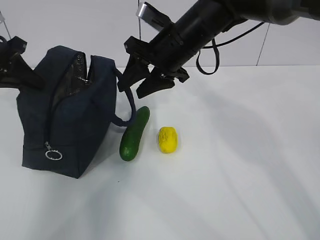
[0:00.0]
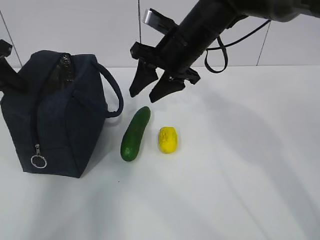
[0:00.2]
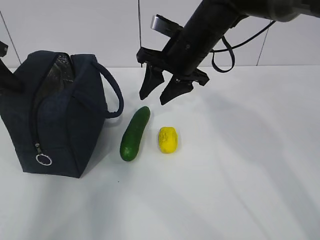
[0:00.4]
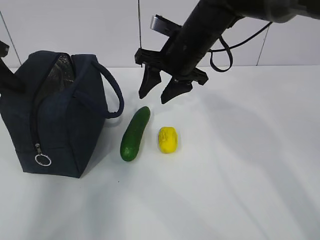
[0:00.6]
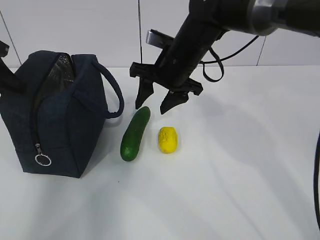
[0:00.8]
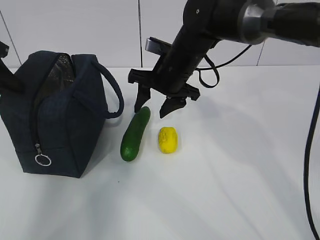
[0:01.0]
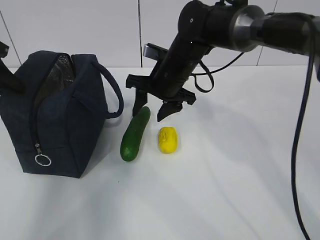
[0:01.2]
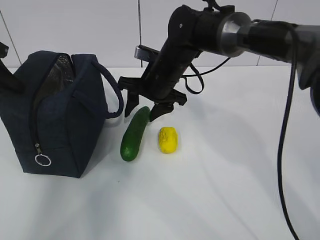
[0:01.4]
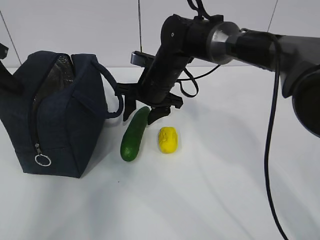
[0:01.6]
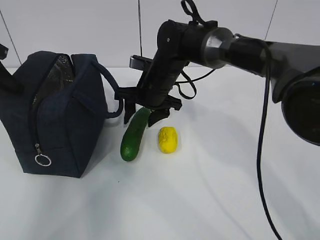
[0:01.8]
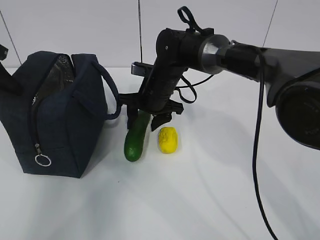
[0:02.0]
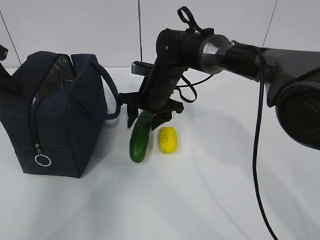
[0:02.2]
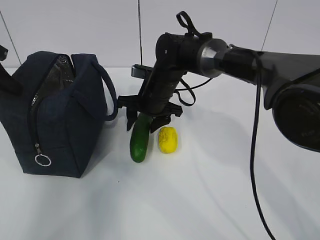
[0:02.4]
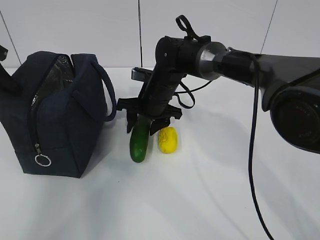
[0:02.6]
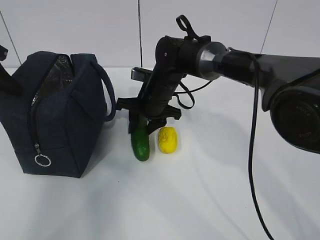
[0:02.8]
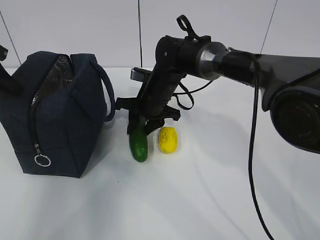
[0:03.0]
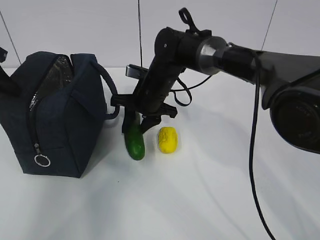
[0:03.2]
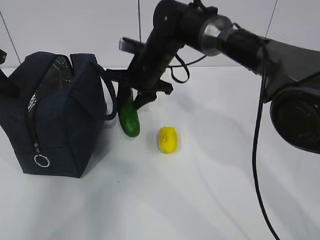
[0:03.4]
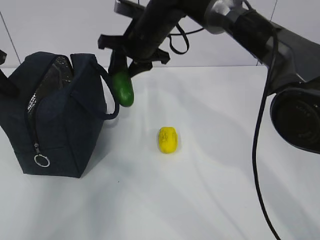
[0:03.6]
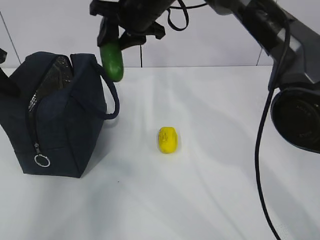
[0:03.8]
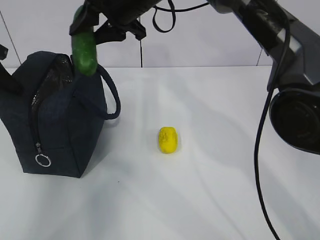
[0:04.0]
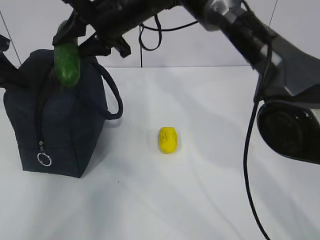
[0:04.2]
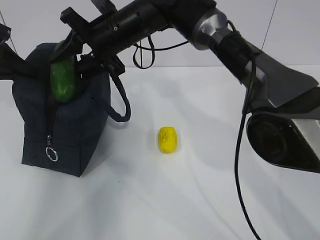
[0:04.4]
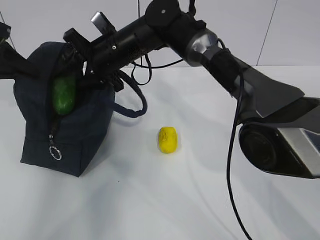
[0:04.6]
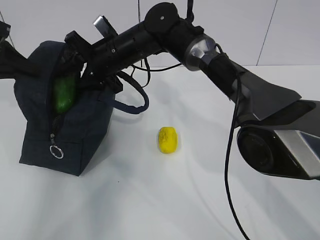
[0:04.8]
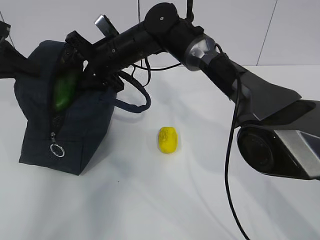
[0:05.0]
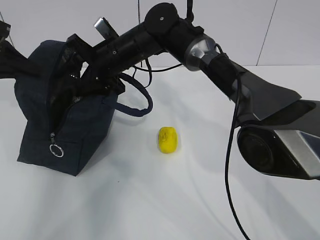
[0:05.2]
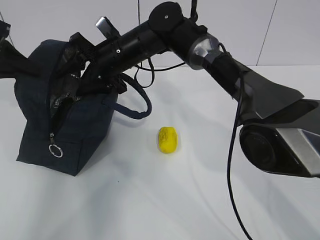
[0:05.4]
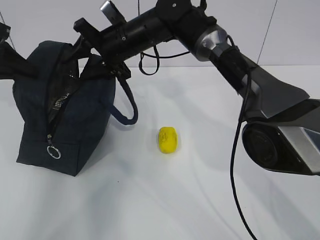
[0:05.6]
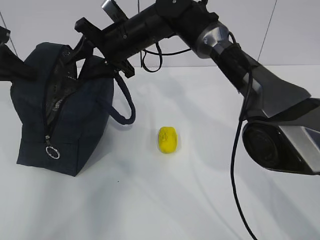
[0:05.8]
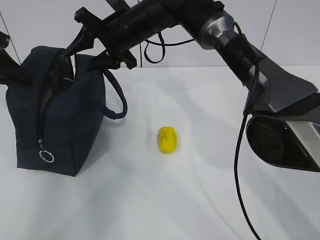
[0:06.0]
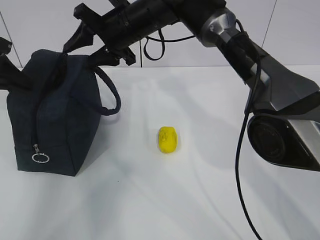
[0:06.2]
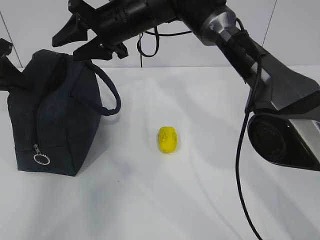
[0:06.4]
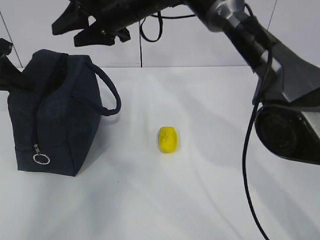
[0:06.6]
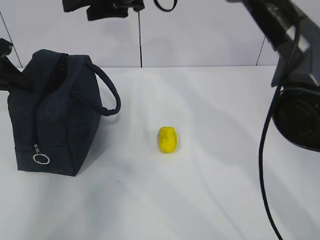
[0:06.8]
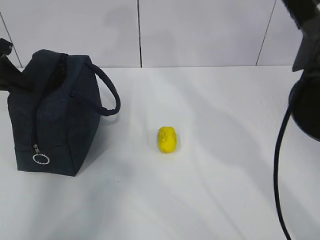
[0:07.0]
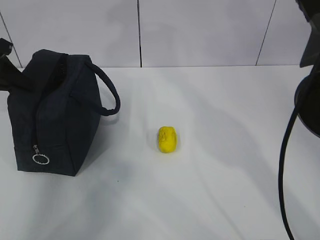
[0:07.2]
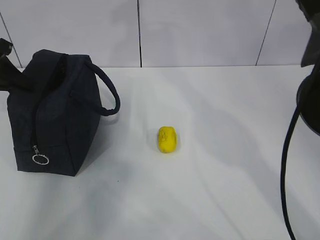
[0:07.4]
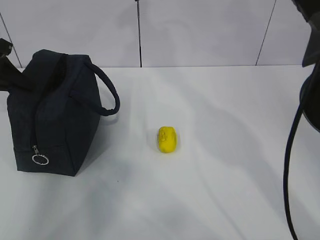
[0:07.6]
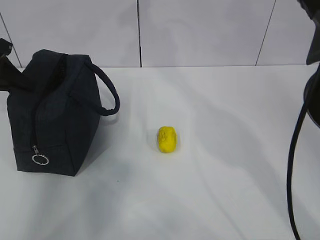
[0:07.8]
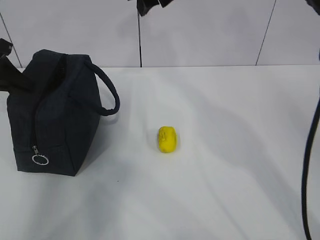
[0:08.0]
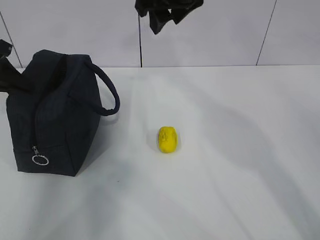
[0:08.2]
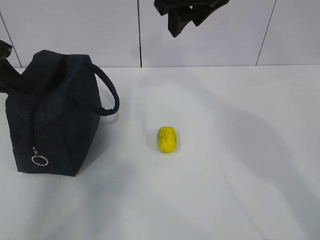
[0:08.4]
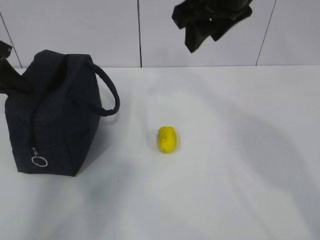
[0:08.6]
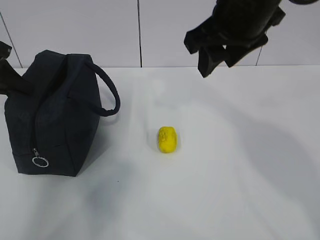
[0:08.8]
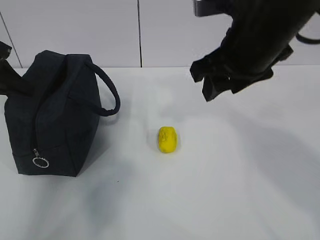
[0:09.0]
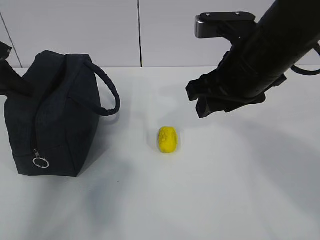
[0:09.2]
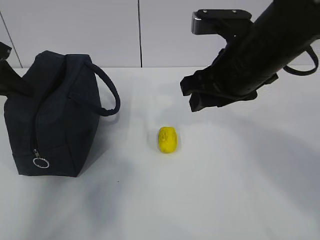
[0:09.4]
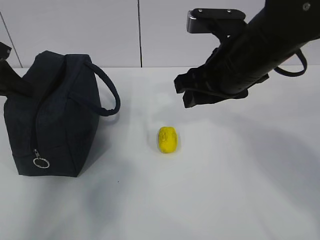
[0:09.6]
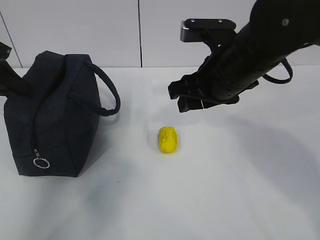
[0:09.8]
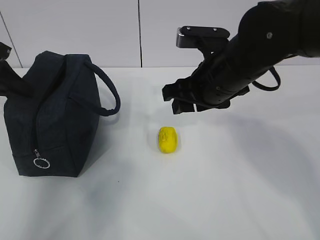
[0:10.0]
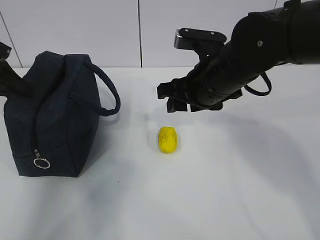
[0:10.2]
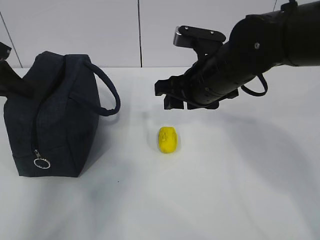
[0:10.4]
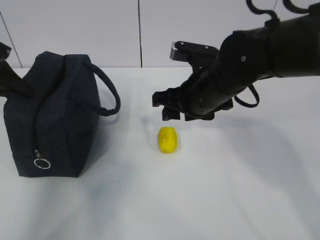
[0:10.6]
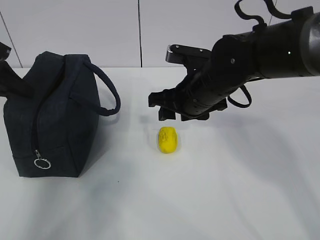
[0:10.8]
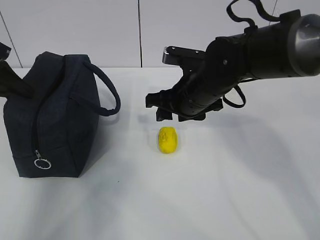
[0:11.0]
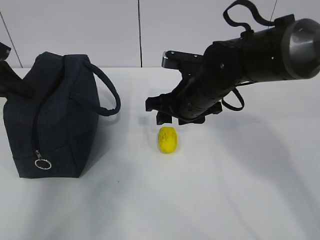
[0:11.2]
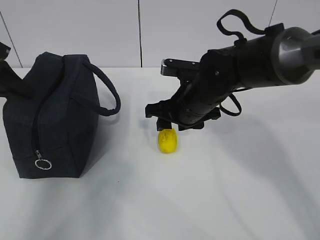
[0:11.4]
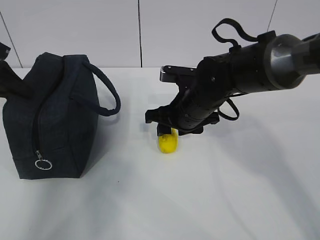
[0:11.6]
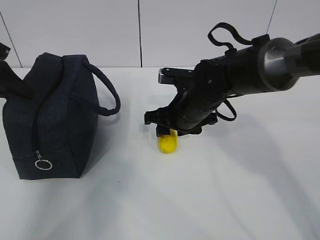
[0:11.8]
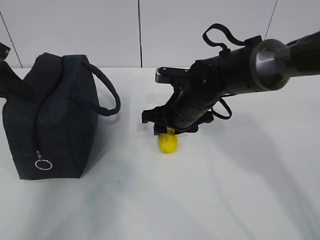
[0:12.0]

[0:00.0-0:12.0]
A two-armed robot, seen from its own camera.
Step, 0:00.6 to 0:08.0: Grab the lemon with your right hand.
Step, 0:10.0 to 0:11.8: Grab the lunch bag with your right hand.
0:00.0 to 0:01.6: The right gripper is displaced downward by approximately 10 cm.
0:01.6 to 0:03.0: There are only small adjustments of the grippers.
0:03.0 to 0:04.4: The right gripper heads upward and to the left, covering approximately 15 cm.
0:04.4 to 0:06.0: There are only small adjustments of the grippers.
0:06.0 to 0:07.6: The right gripper travels upward and to the right by about 15 cm.
0:07.6 to 0:09.0: The right gripper shifts some 15 cm backward, to the right and downward.
0:09.0 to 0:10.4: The right gripper goes approximately 10 cm downward.
0:10.4 to 0:12.0: The right gripper is displaced downward by about 10 cm.

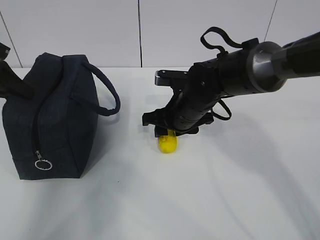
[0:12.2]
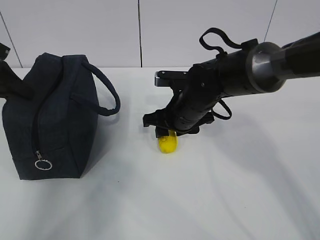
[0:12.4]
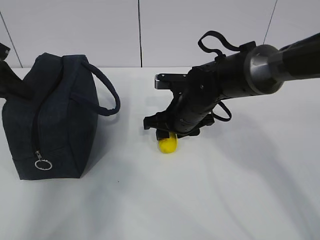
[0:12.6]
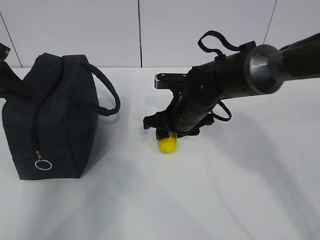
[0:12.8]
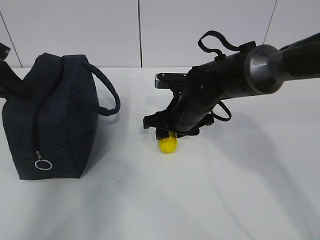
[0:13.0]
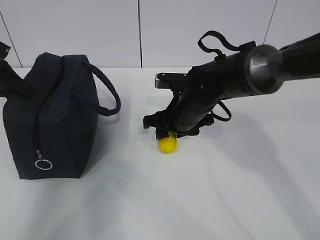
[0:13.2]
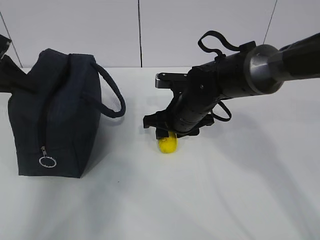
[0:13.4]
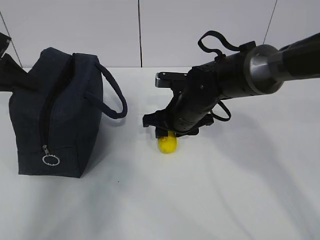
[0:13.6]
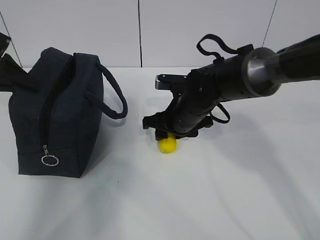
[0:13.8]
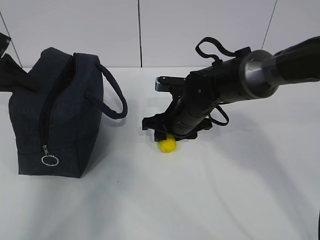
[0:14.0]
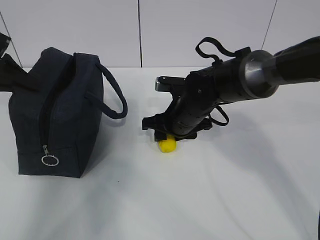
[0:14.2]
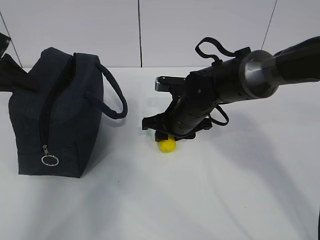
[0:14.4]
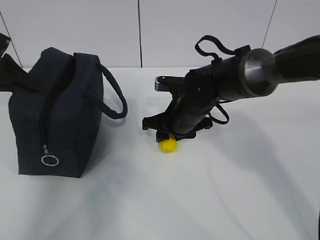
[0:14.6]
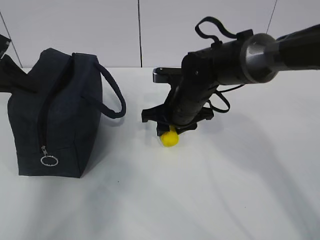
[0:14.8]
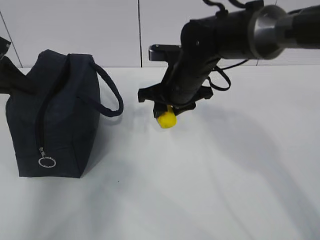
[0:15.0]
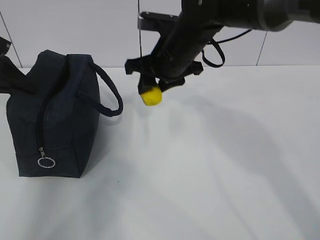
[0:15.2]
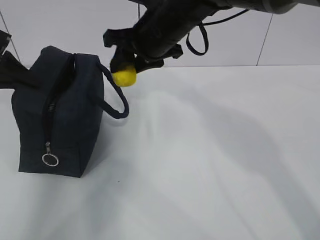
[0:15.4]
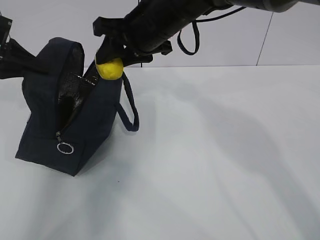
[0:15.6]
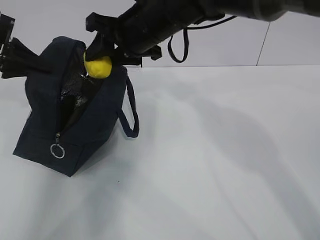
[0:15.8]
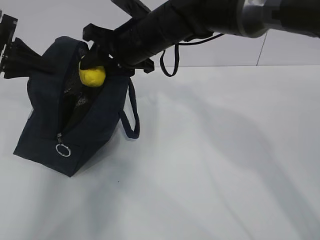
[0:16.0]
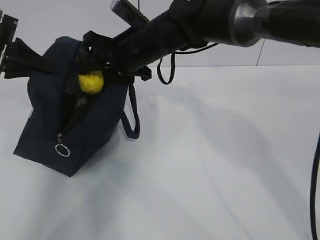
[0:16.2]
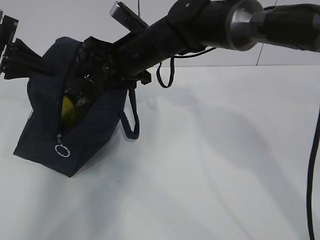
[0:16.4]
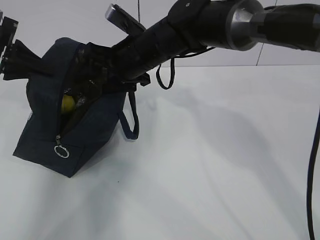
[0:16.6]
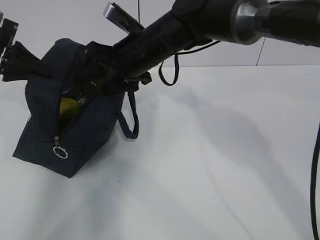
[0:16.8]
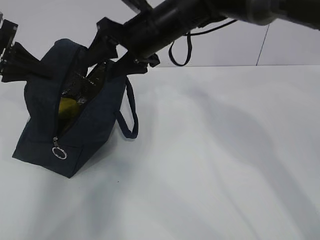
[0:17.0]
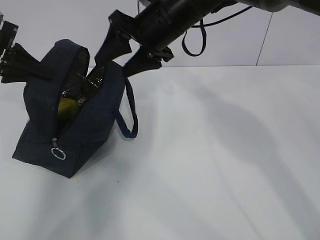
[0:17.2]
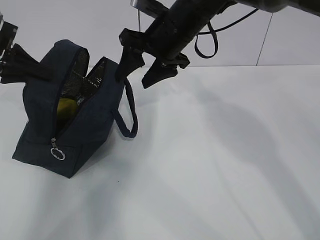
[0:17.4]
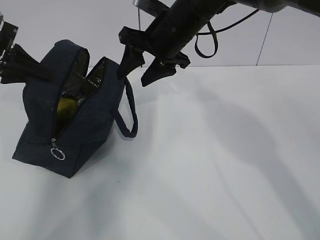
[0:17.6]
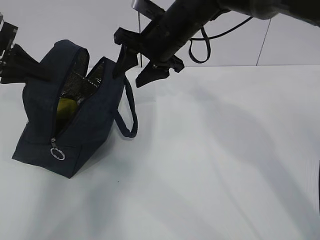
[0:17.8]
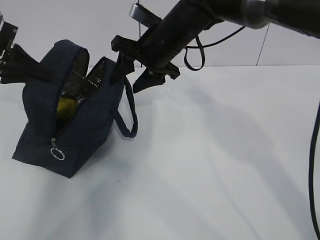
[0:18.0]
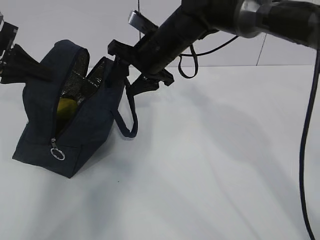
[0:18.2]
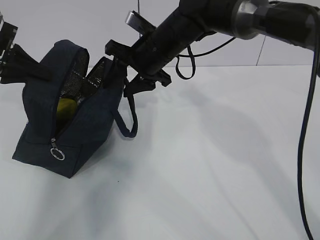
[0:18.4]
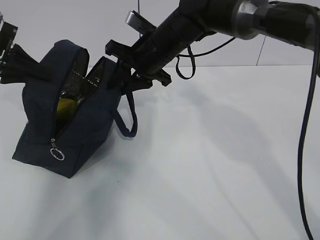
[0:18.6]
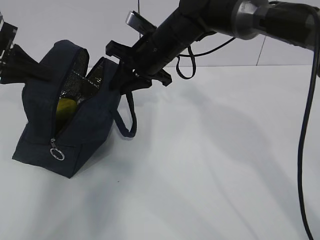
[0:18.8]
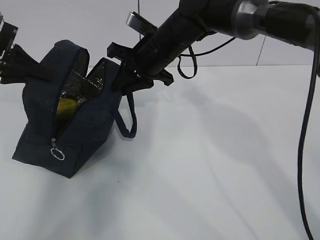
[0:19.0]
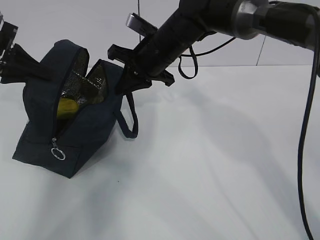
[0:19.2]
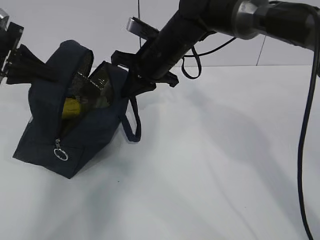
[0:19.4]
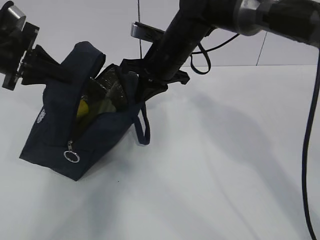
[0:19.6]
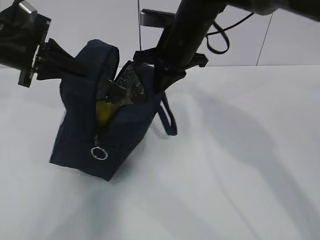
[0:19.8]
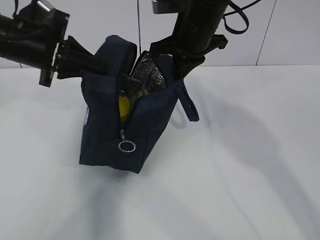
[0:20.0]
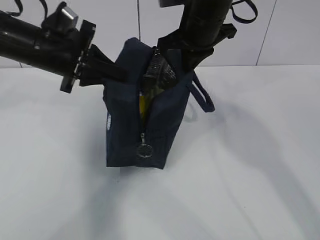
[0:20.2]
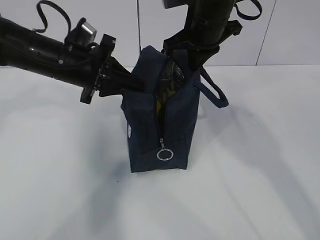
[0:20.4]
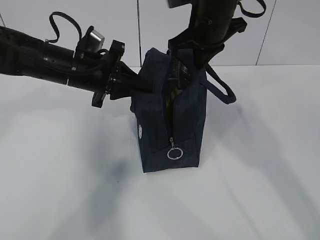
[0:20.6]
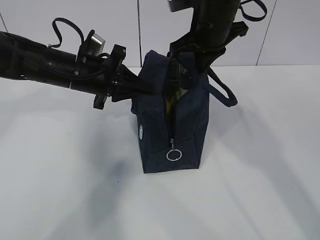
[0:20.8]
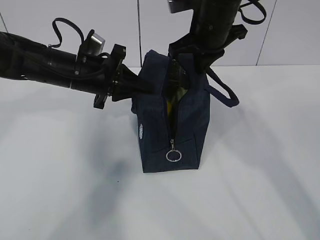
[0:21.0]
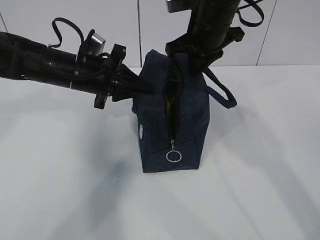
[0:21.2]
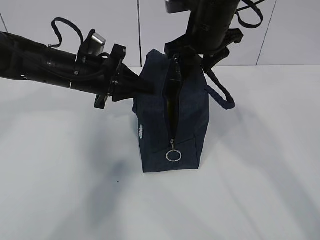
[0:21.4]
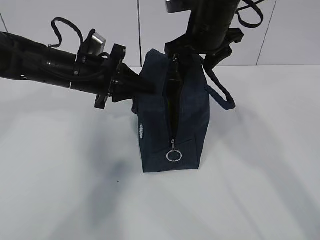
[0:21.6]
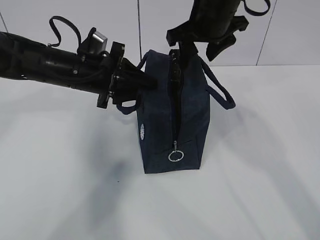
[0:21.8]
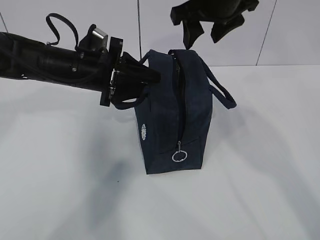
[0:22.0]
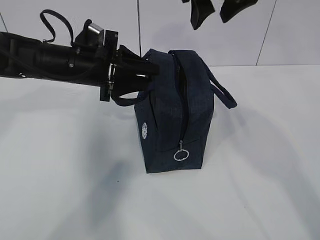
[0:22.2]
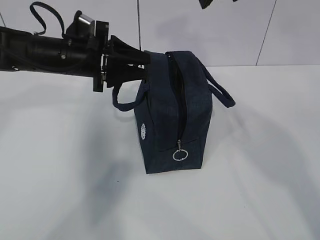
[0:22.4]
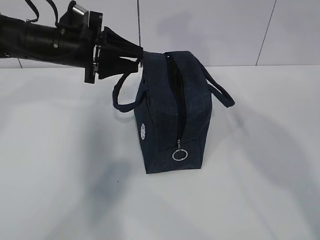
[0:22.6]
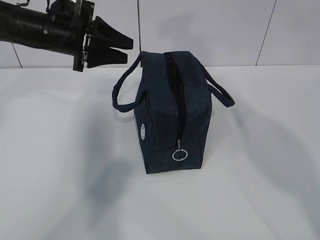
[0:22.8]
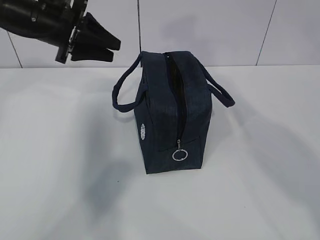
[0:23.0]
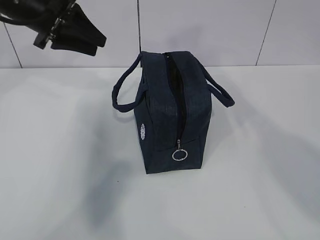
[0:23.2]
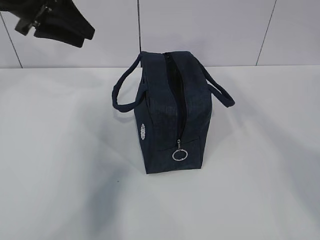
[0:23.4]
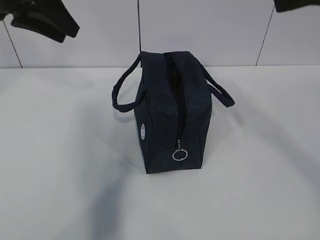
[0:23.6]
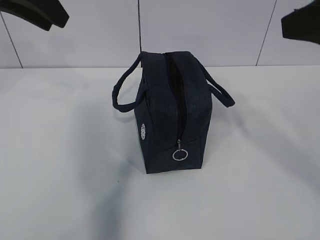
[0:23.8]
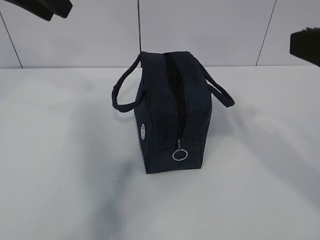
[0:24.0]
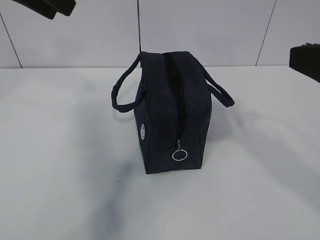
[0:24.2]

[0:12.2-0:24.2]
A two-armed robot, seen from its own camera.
Step, 0:12.2 to 0:14.6: Move the lunch bag to the right.
0:12.2 to 0:13.8: There are only small adjustments of the grippers.
0:13.8 to 0:15.2: The right gripper shifts roughly 10 cm upward.
0:15.2 to 0:16.6: The right gripper travels to the left by about 5 cm, and opens its fingers.
0:18.2 to 0:19.8: The left gripper moves to the right, about 5 cm; the right gripper closes.
0:19.8 to 0:21.2: The right gripper moves about 5 cm. Meanwhile the left gripper travels to the right and downward by about 15 cm.
0:21.2 to 0:22.6: The right gripper travels upward and backward by about 15 cm, and opens. The left gripper opens up.
0:22.6 to 0:24.2: The left gripper travels upward and backward by some 20 cm. Meanwhile the right gripper is displaced backward, to the right and downward by about 25 cm.
